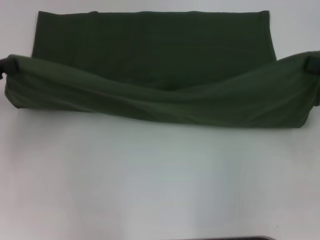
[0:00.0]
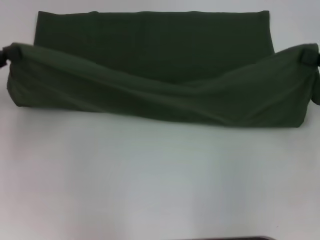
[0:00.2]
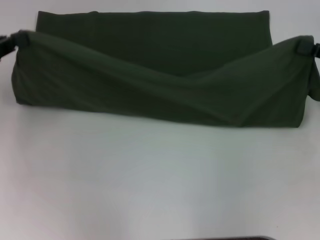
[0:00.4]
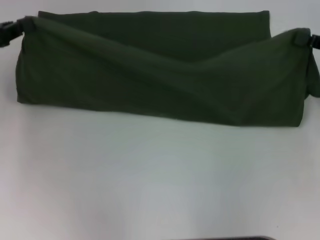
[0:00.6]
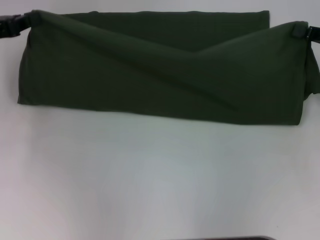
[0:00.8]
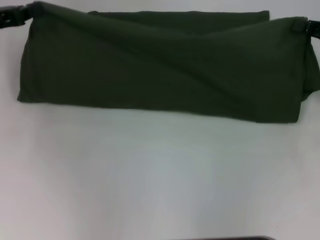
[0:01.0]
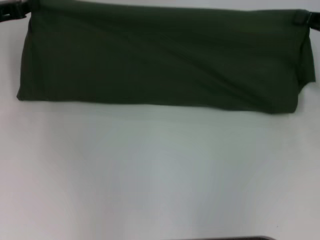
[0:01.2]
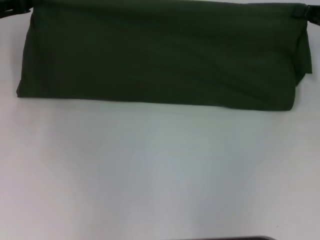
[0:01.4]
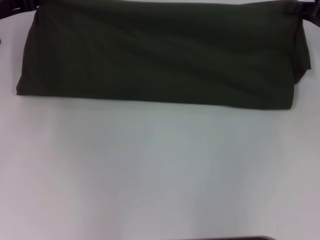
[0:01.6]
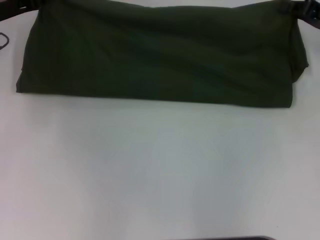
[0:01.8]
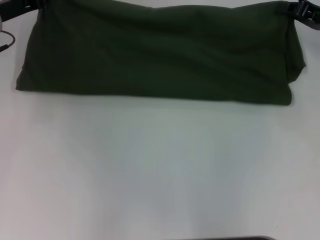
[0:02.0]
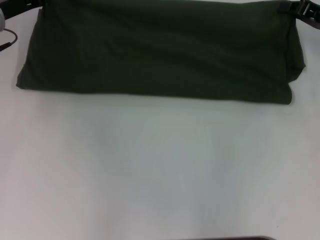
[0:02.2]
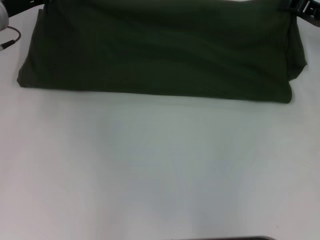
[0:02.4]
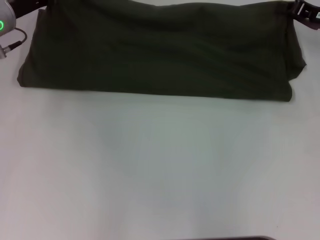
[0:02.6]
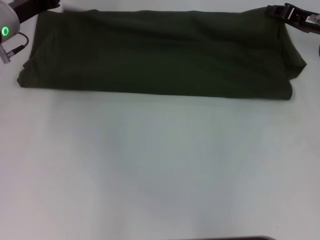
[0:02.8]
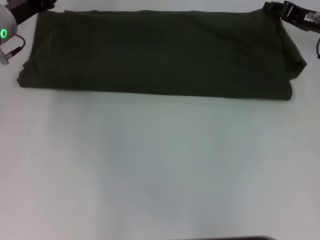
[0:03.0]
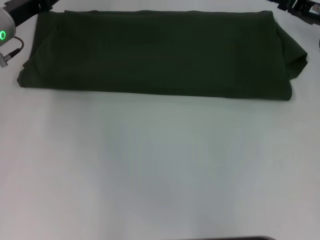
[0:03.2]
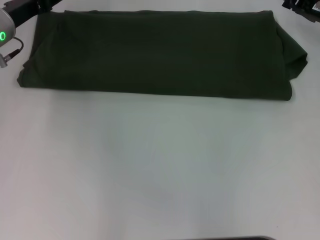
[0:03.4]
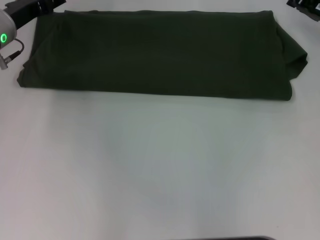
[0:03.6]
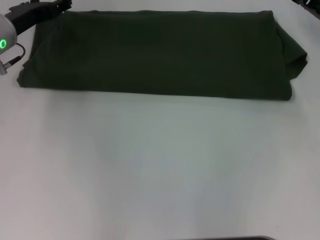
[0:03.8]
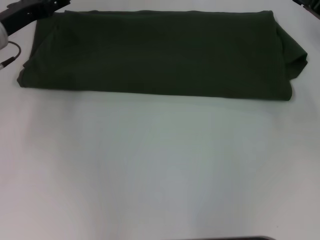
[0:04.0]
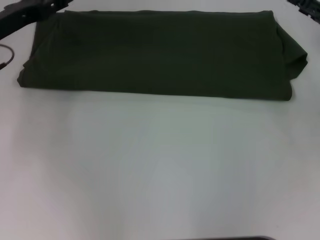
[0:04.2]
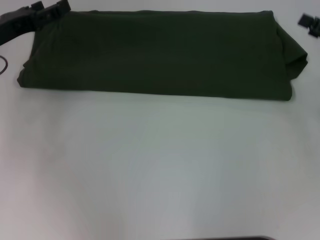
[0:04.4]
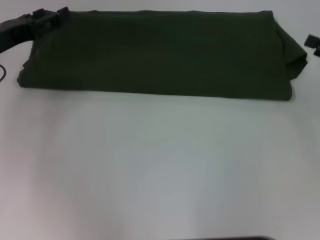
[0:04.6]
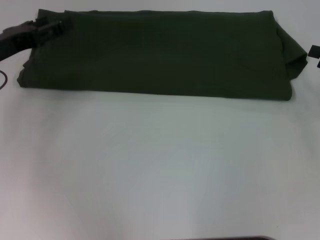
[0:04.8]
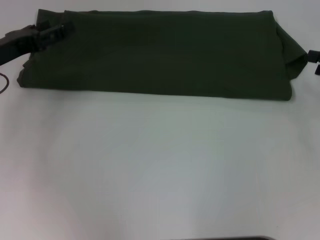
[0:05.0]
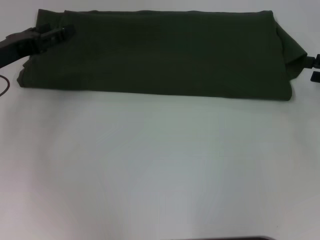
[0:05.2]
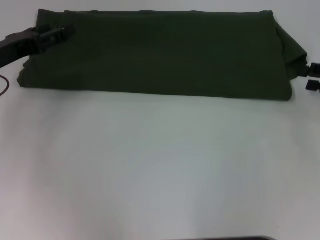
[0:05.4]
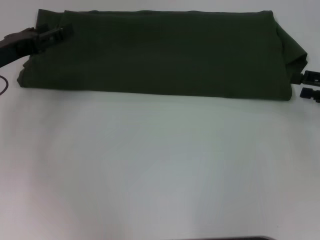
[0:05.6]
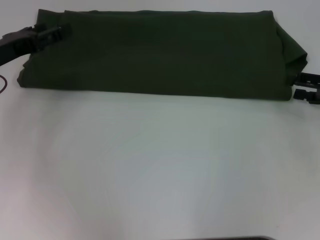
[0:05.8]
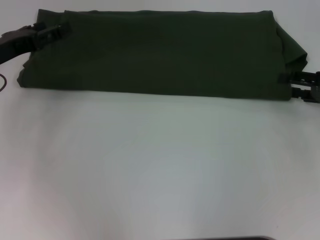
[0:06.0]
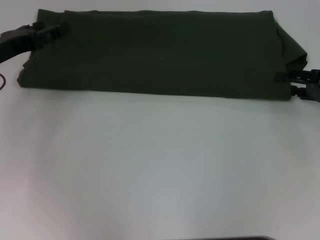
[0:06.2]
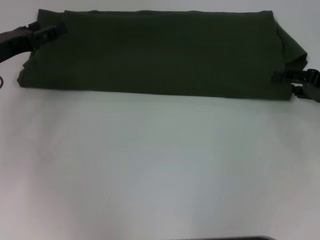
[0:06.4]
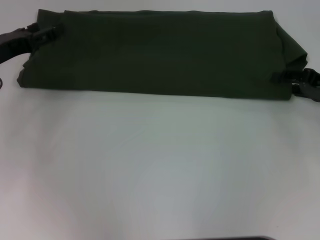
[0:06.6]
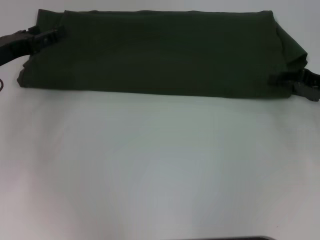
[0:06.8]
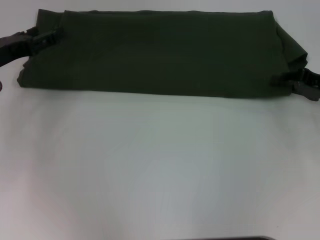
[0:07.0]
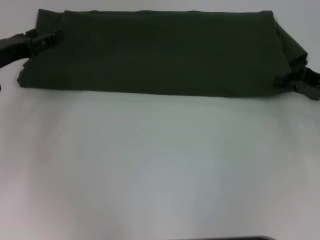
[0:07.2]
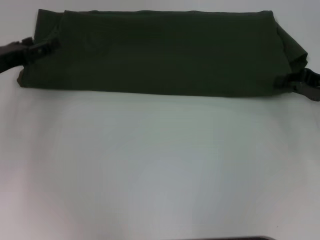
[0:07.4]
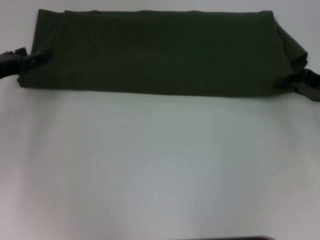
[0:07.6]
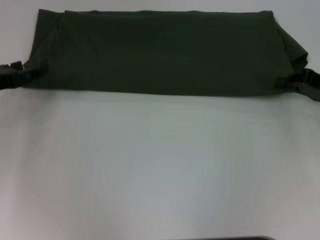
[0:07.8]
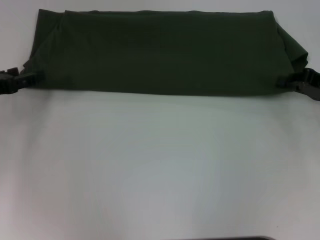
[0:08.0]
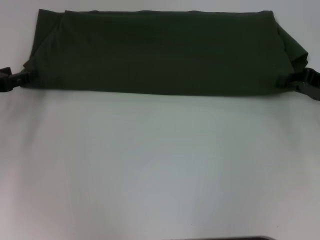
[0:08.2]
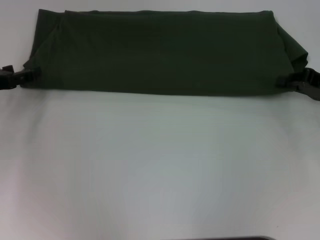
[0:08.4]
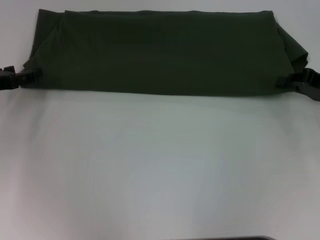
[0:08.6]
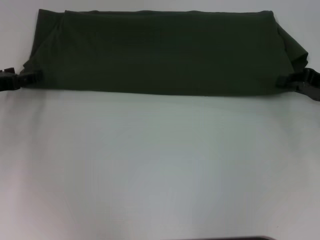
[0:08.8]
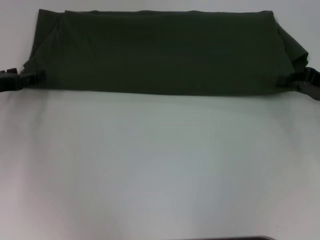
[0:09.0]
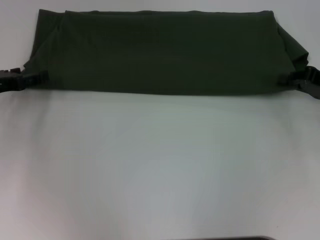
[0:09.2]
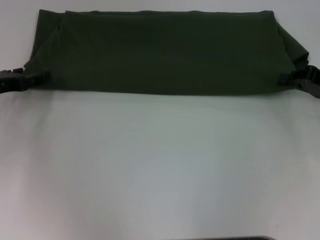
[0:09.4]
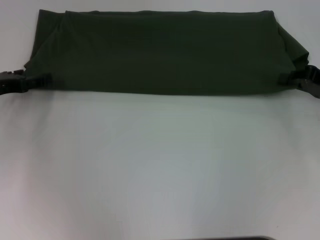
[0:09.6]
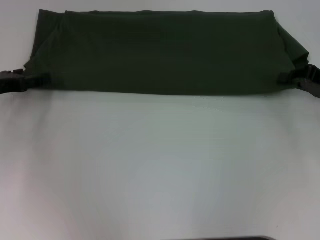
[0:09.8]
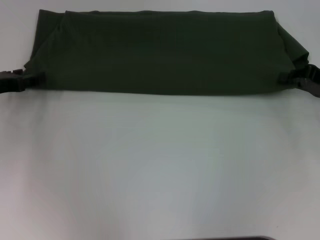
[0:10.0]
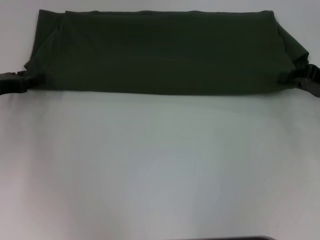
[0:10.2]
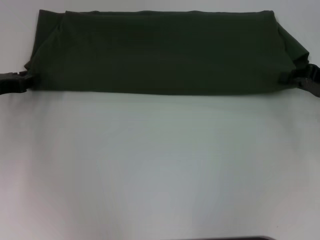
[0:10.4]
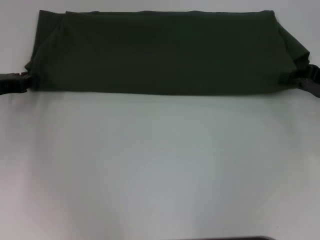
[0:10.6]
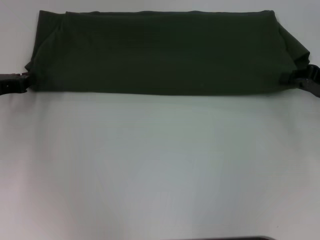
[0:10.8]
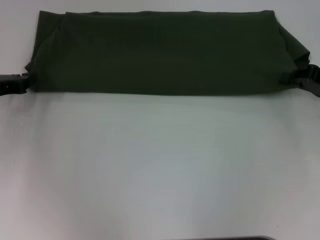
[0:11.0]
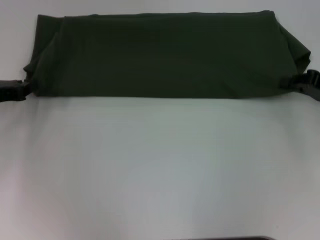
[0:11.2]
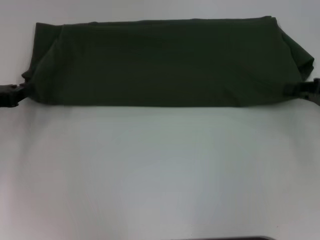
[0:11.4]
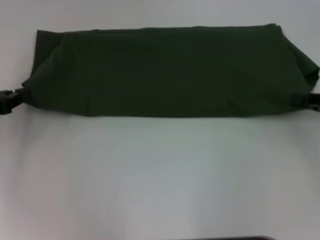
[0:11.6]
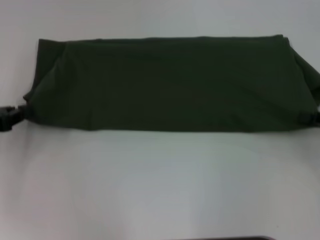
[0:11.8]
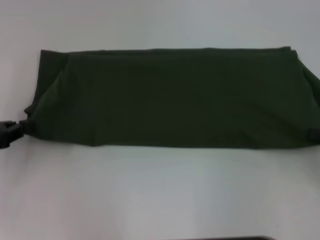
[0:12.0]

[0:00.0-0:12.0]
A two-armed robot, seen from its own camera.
Step, 0:00.0 to 0:03.4: Fold the clothes with your right hand.
0:00.0 to 0:01.6: The right gripper travels forward by some 10 cm, while the left gripper moves forward and to the right, roughly 15 cm.
0:01.6 to 0:03.0: The left gripper moves roughly 5 cm, while the right gripper ends up approximately 5 cm from where it was.
0:03.0 to 0:04.4: The left gripper heads backward, covering about 5 cm, and opens up. Meanwhile the right gripper goes some 10 cm backward and to the right, and opens its fingers.
0:06.0 to 0:07.6: The right gripper closes its fingers.
0:07.6 to 0:09.0: There are only small adjustments of the grippers.
0:09.0 to 0:10.4: The left gripper closes up.
0:10.4 to 0:12.0: The grippers both shift backward by some 10 cm. The left gripper closes its fingers.

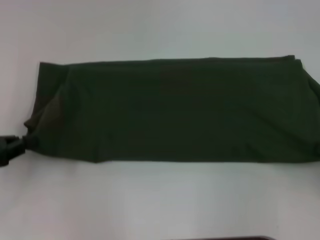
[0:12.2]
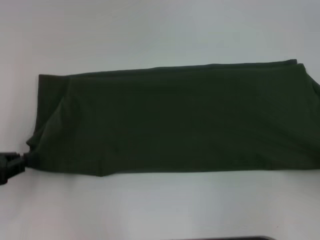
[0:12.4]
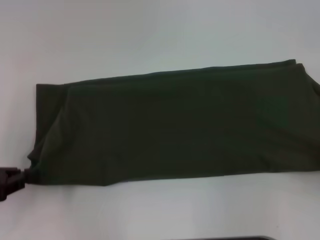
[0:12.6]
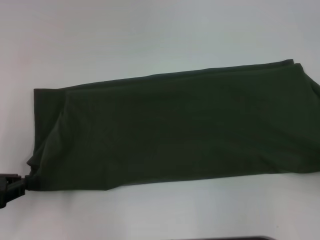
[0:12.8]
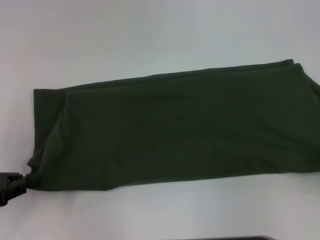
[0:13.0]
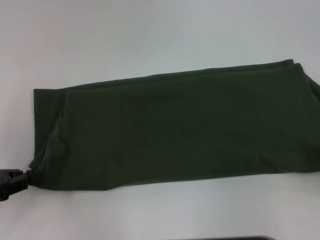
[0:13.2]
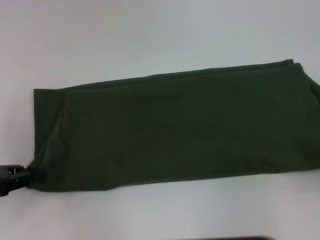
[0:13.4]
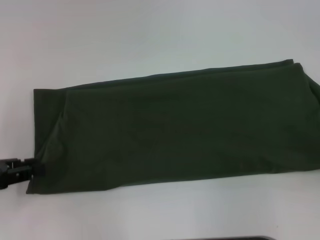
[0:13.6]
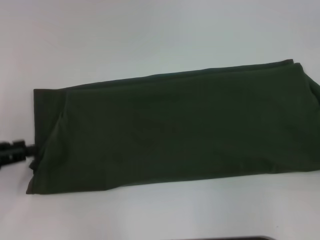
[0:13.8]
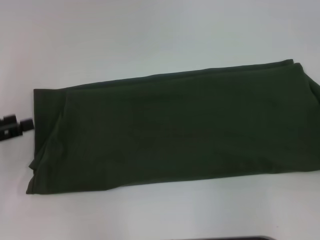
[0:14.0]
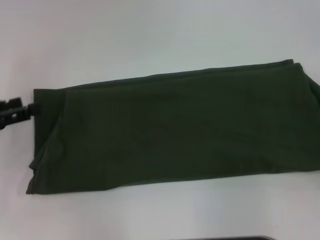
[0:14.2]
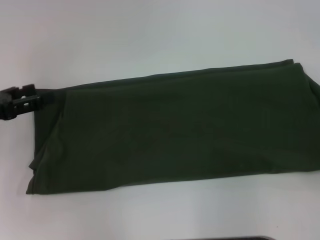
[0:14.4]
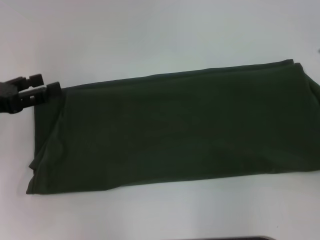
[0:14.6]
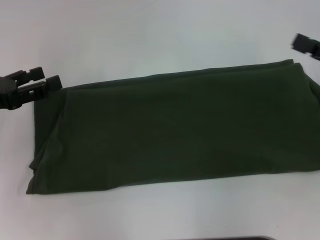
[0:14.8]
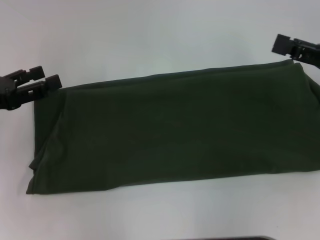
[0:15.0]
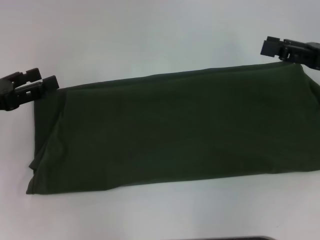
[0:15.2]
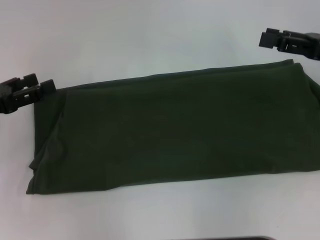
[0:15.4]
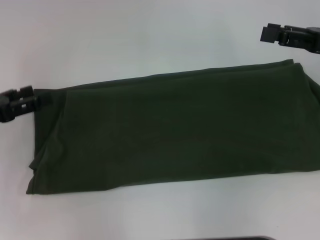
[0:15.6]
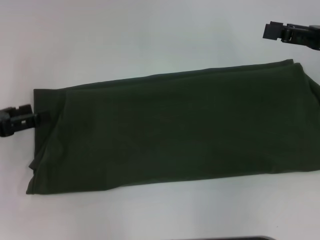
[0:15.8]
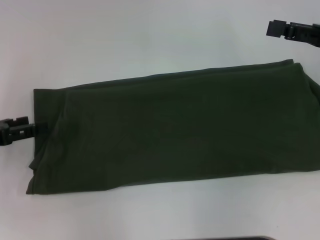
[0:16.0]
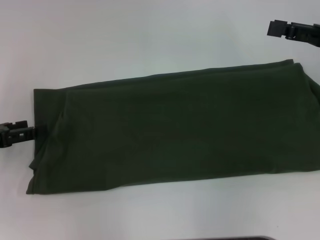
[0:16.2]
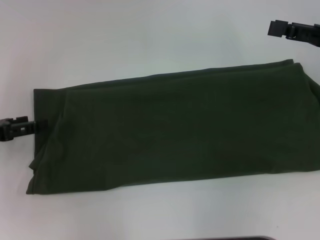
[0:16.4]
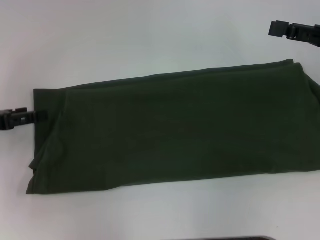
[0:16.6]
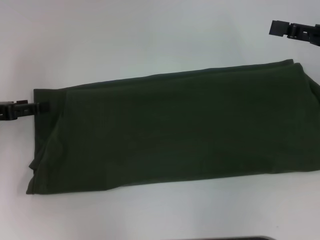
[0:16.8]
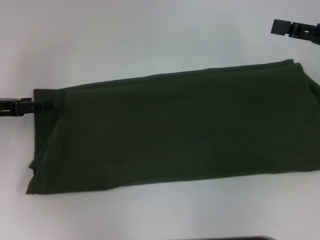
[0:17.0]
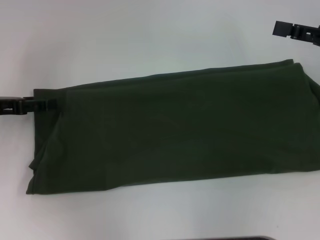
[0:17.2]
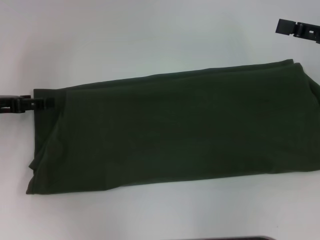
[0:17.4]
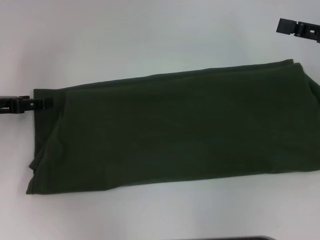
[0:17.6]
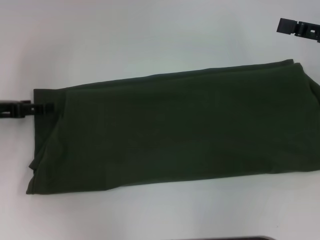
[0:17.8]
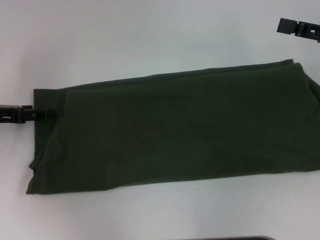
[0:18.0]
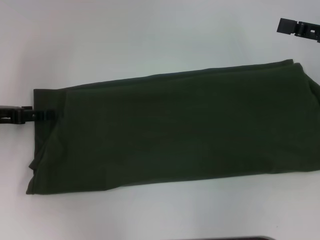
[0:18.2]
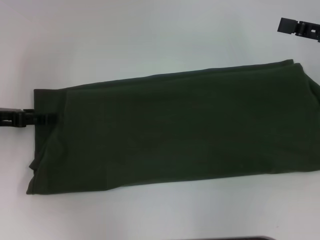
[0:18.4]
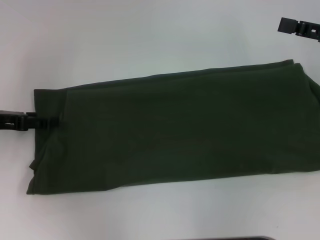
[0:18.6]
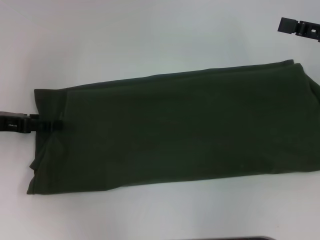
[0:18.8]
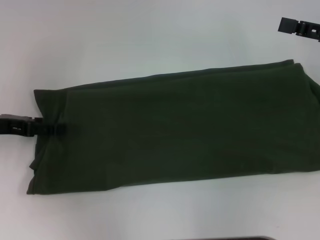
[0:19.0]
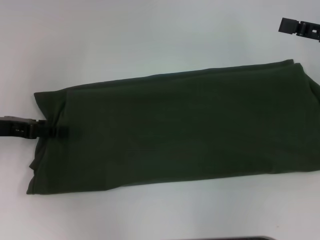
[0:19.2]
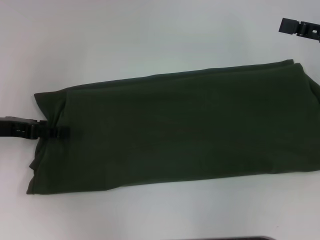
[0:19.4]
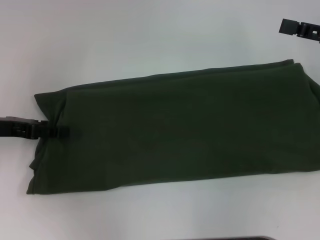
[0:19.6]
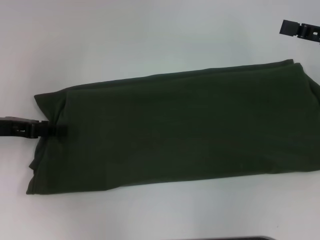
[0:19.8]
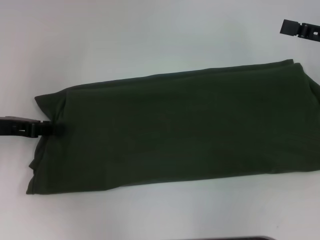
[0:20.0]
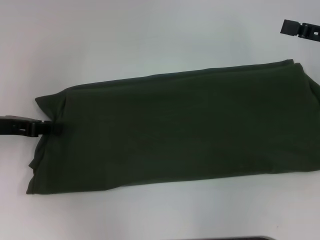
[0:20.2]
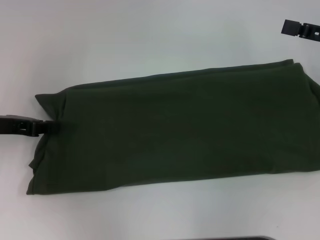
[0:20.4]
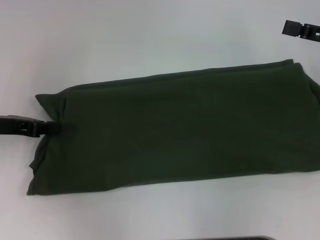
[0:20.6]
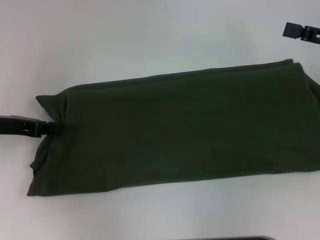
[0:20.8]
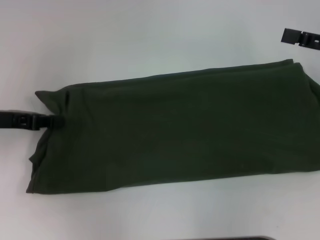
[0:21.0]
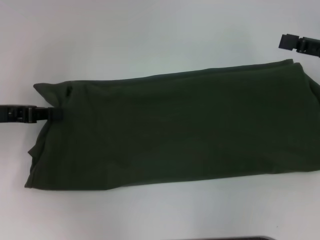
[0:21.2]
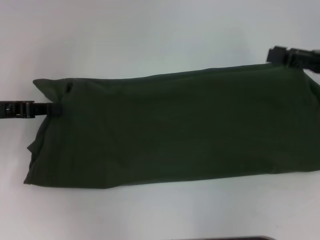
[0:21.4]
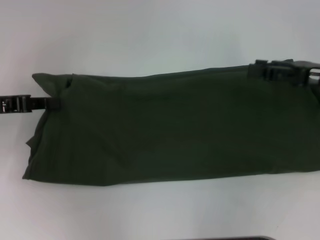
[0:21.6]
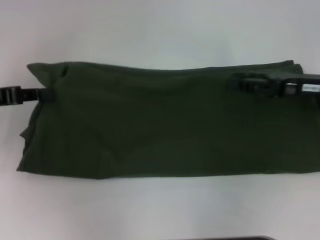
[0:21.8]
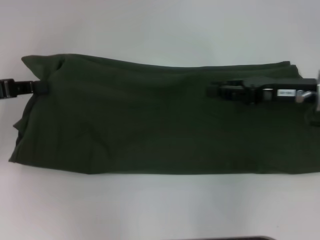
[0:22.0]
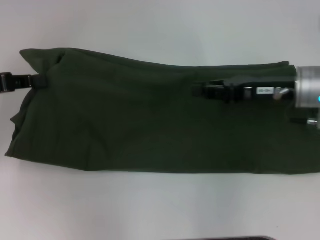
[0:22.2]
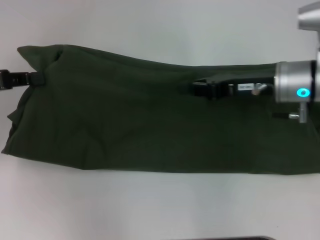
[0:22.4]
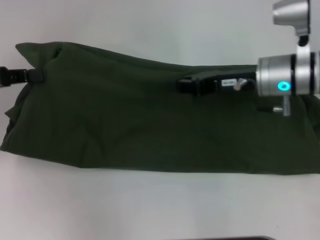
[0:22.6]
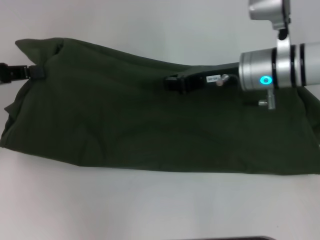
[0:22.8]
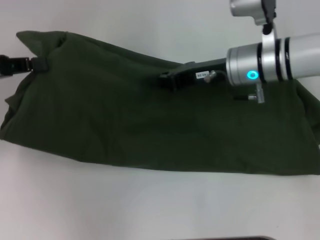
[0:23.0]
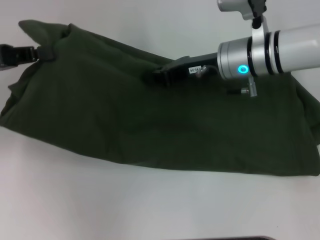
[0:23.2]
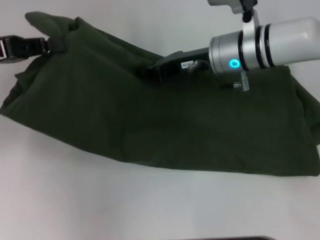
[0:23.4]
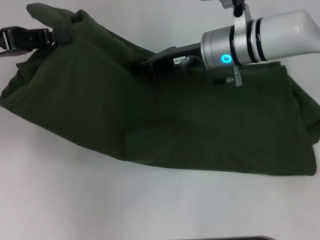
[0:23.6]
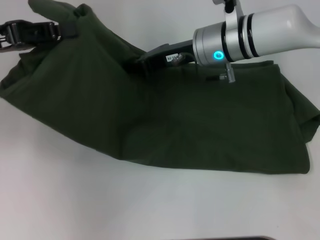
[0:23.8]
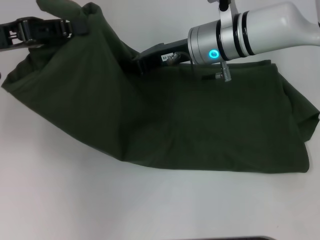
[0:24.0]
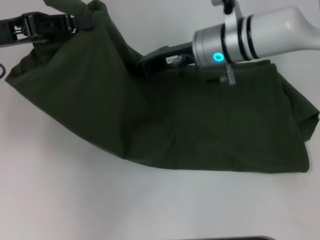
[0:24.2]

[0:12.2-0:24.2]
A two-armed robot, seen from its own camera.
0:12.2 to 0:13.8: The left gripper opens; the right gripper opens.
0:13.8 to 0:15.2: The left gripper moves about 5 cm, and opens; the right gripper shifts approximately 20 cm forward and to the left, and opens.
0:16.6 to 0:19.8: There are only small adjustments of the grippers.
0:19.8 to 0:21.2: The left gripper closes up.
0:21.2 to 0:22.6: The right gripper shifts about 15 cm to the left, and closes its fingers. Meanwhile the left gripper moves approximately 5 cm.
0:22.6 to 0:24.2: The left gripper is displaced to the right by approximately 5 cm. The right gripper shifts roughly 10 cm to the left.
